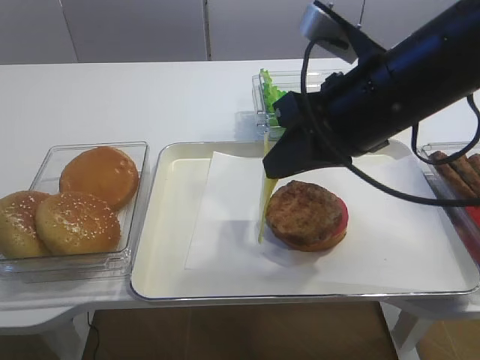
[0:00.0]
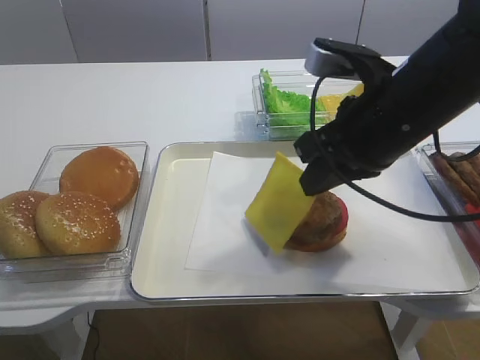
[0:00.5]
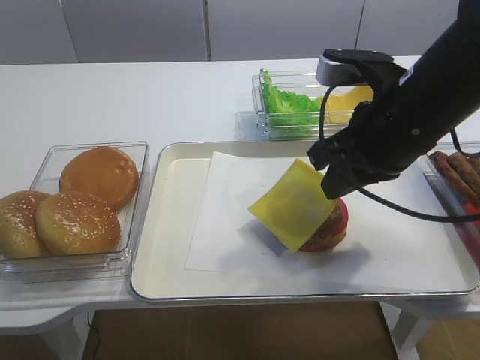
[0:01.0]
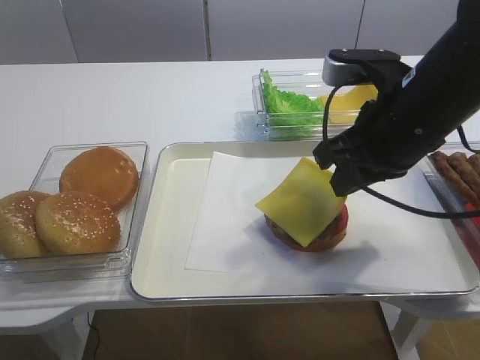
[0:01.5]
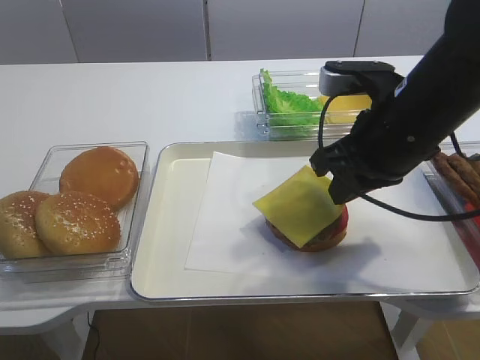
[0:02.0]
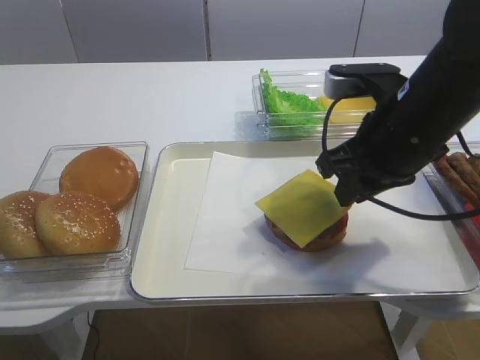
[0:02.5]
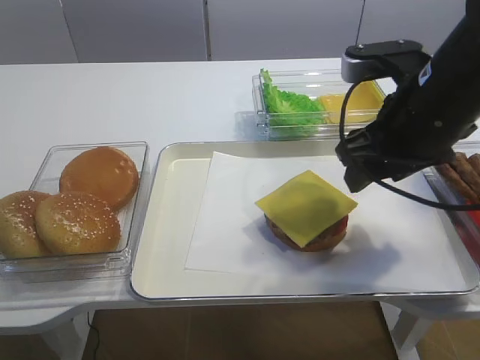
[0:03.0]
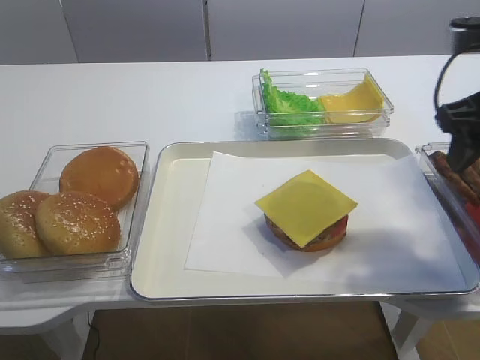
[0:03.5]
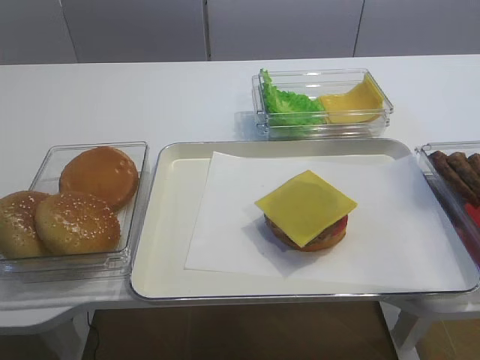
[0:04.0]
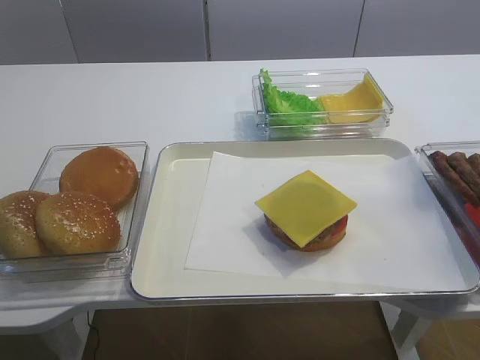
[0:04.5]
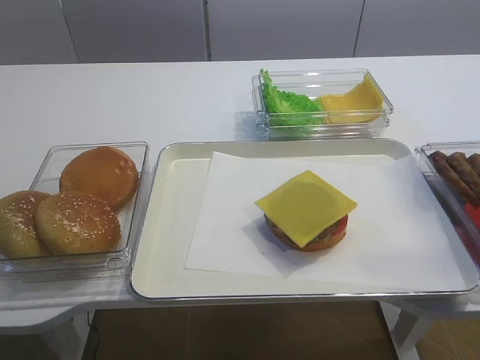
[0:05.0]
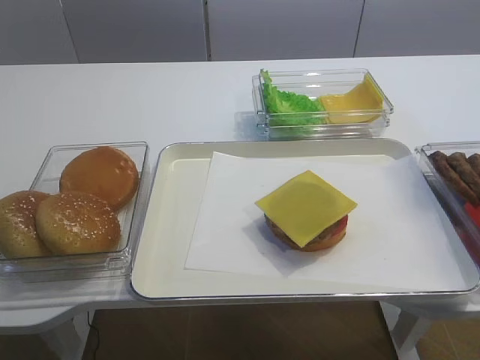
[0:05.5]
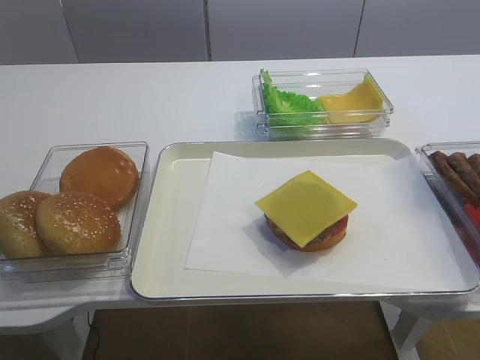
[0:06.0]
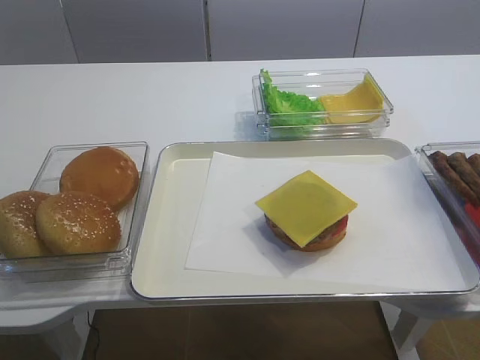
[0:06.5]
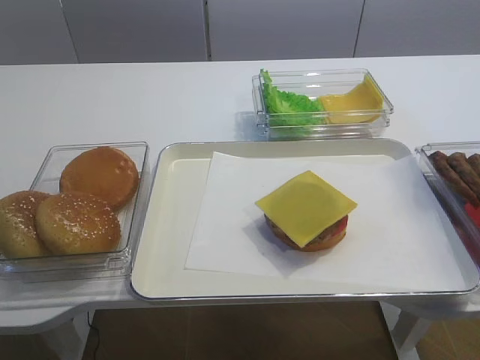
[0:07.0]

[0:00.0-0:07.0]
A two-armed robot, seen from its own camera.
Step, 0:00.0 to 0:03.0: Place the cheese slice on the cutlet with the right gripper.
0:02.0 to 0:03.5: The right gripper is displaced to the right by approximately 10 cm, and opens up.
0:03.5 to 0:05.0: The right gripper travels backward by some 25 cm.

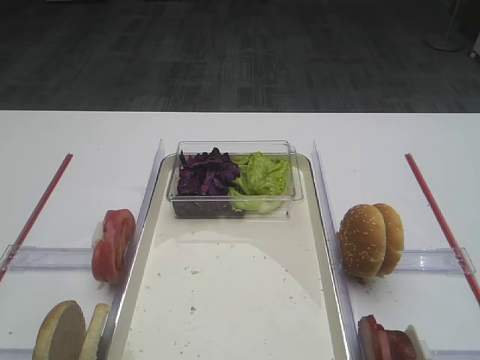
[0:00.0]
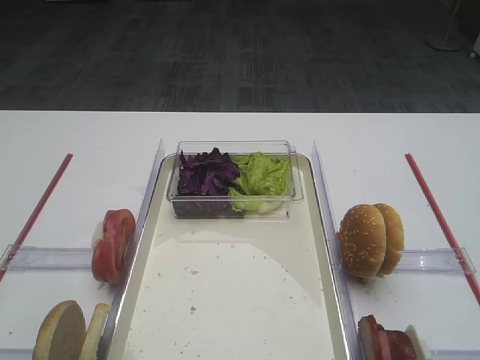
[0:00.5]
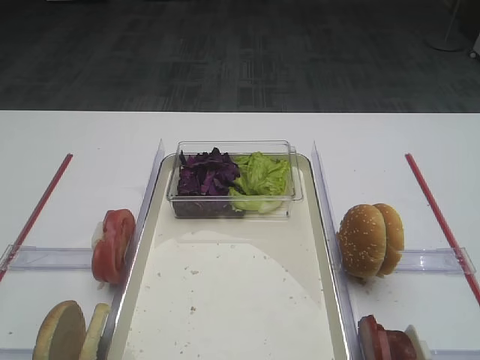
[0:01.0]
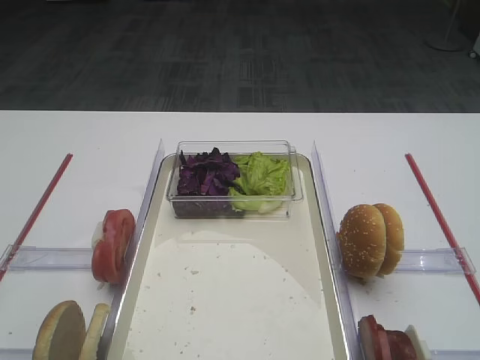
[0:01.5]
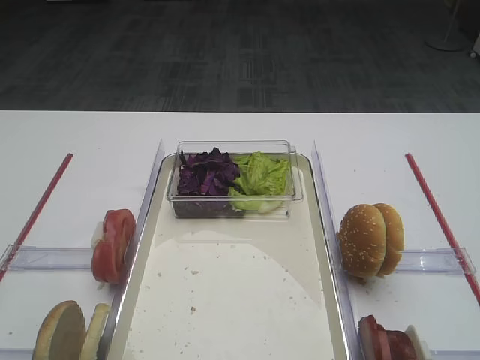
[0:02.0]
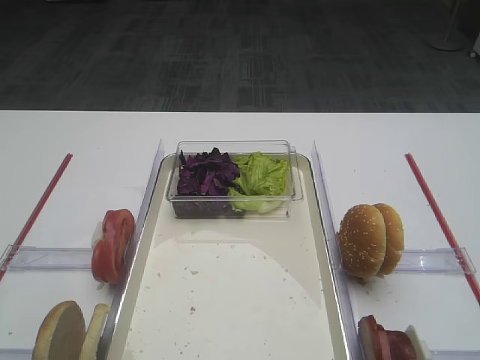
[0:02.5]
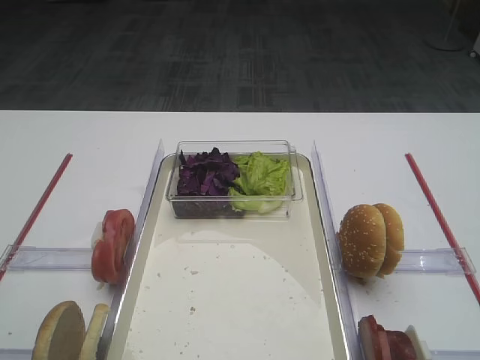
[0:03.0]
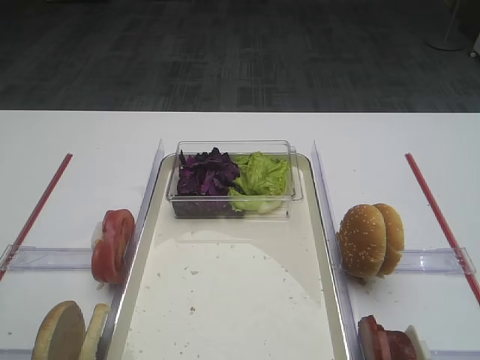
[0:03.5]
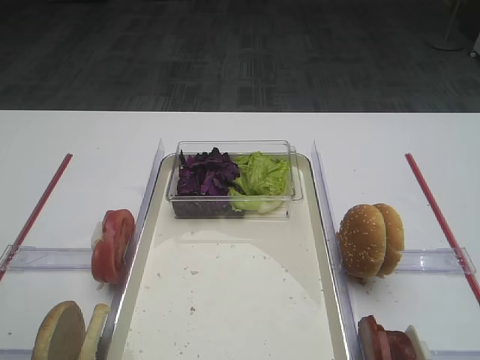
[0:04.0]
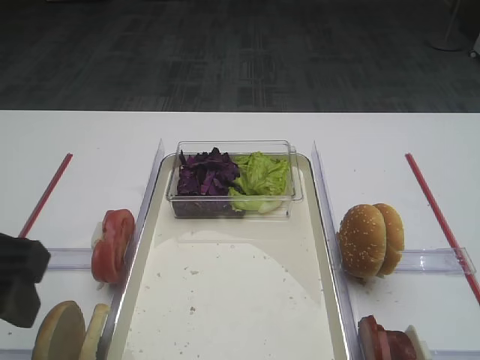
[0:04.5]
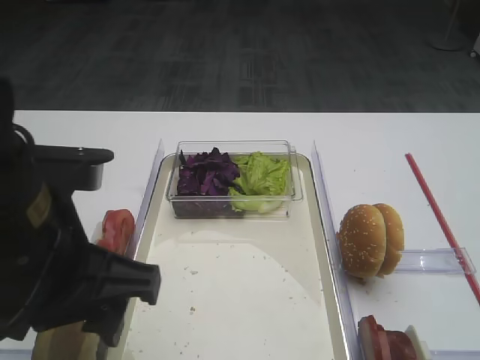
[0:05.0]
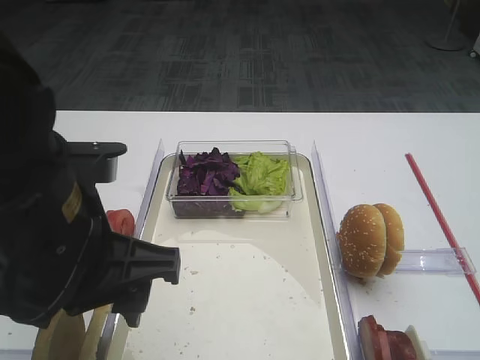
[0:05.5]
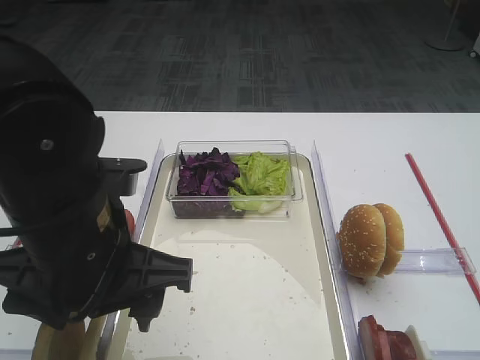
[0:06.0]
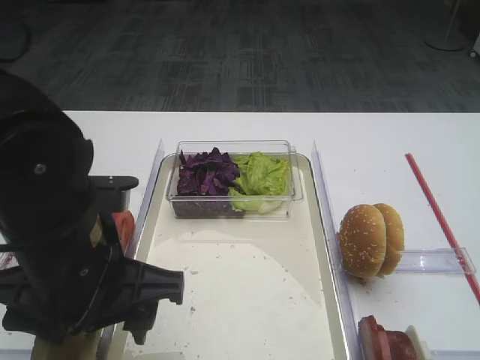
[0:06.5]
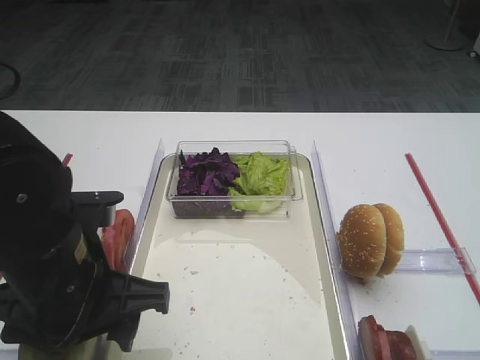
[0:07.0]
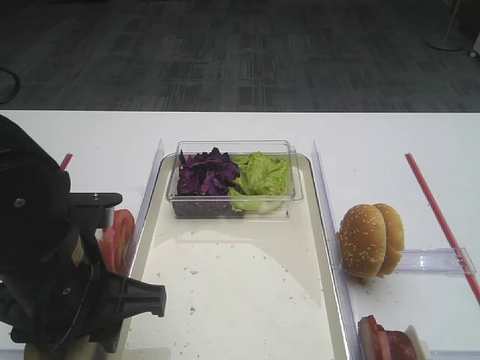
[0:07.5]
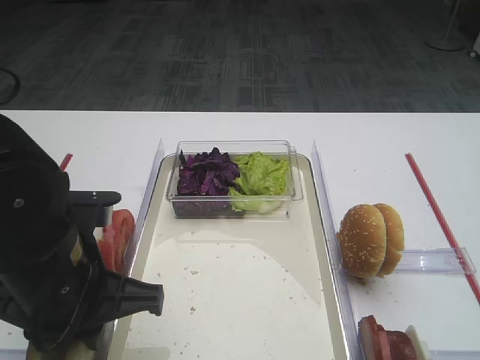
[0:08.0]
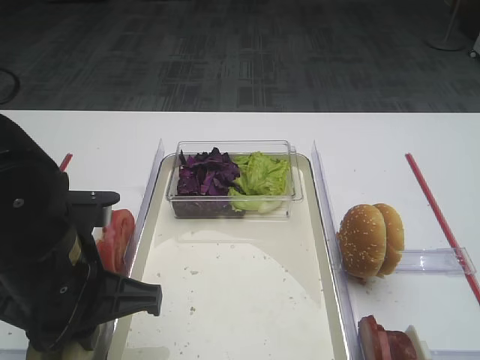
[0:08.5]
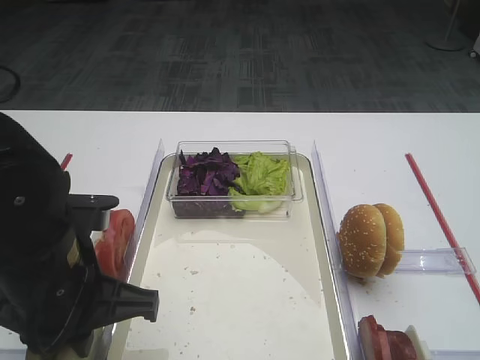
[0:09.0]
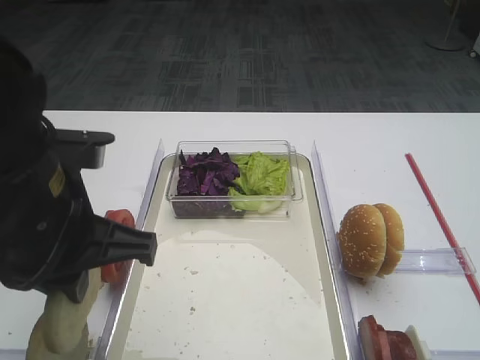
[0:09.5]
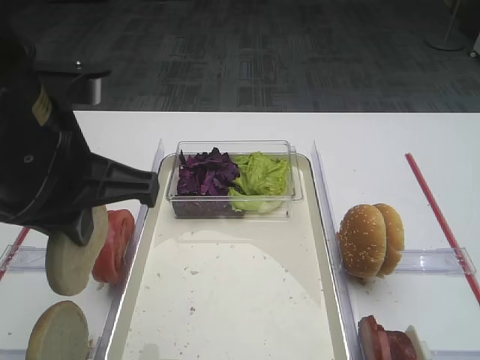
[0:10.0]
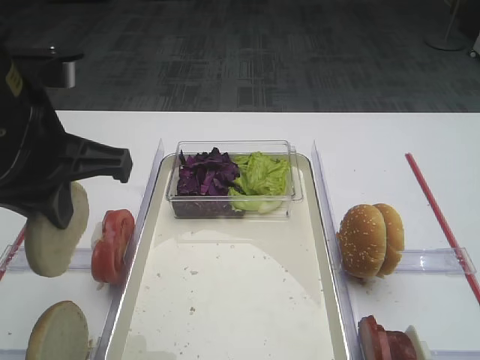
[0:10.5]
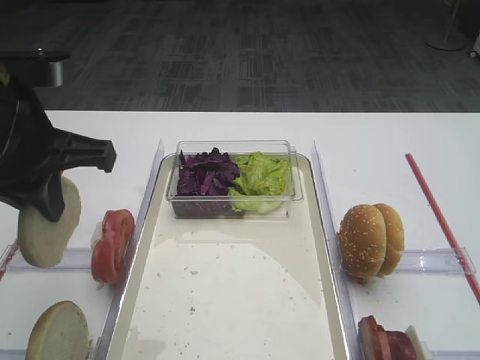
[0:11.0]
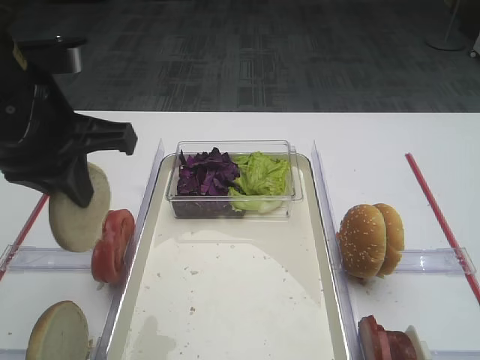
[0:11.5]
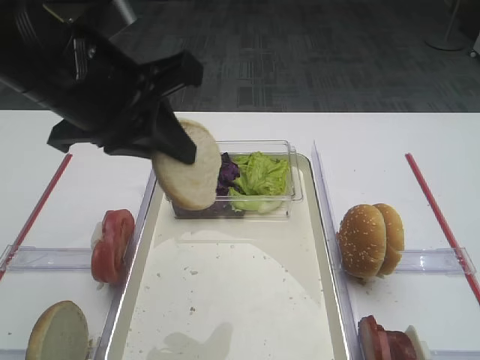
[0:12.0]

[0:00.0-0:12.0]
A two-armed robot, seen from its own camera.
Step, 0:00.0 to 0:09.0: Pick up the bread slice with the left gripper.
0:04.0 to 0:06.0: The left gripper is displaced to the right by about 15 cm.
0:06.0 to 0:08.0: The left gripper ends up about 5 cm from where it was, and closes up.
0:08.0 to 0:10.0: The left gripper goes some 10 cm upward.
0:10.0 to 0:12.0: The left gripper moves about 5 cm.

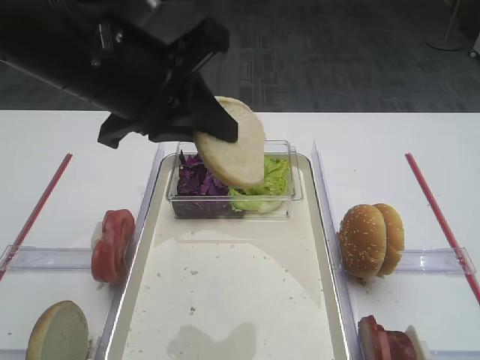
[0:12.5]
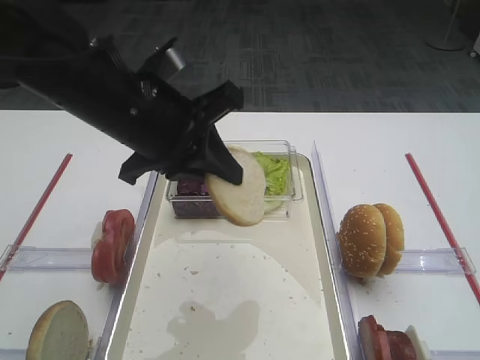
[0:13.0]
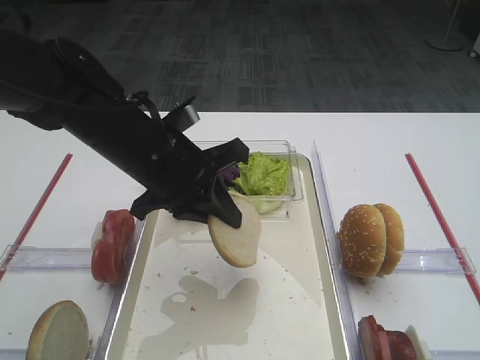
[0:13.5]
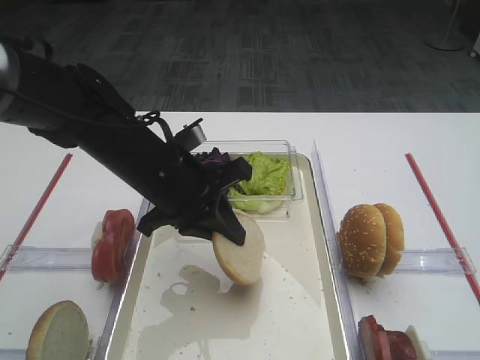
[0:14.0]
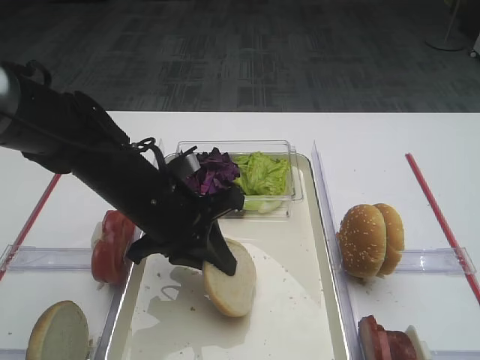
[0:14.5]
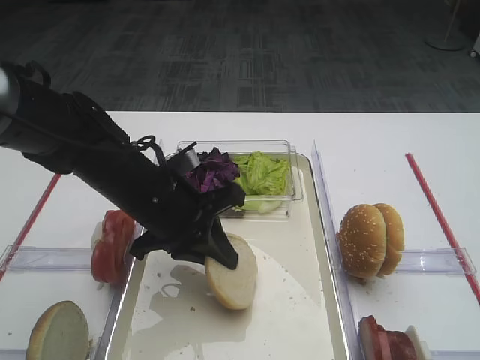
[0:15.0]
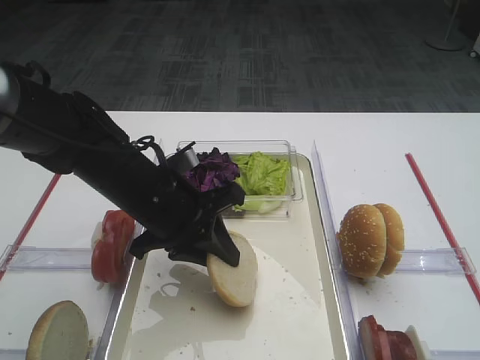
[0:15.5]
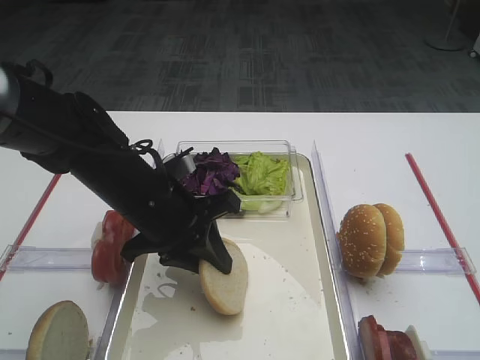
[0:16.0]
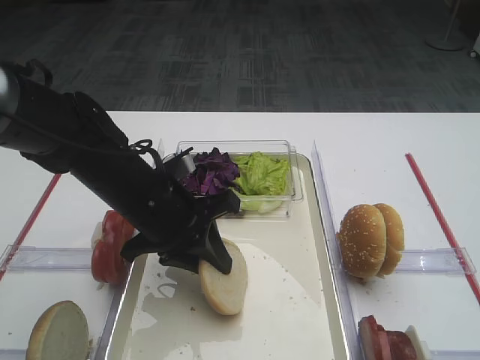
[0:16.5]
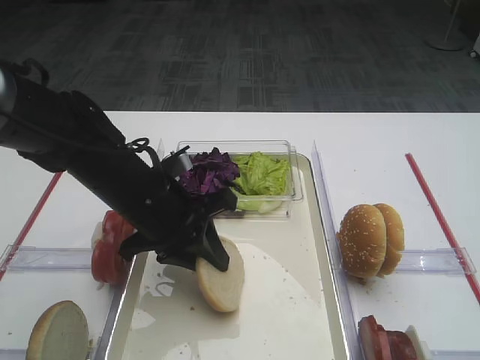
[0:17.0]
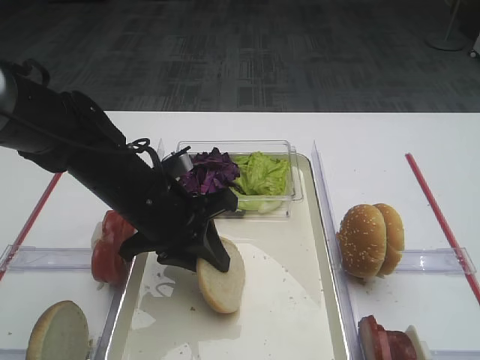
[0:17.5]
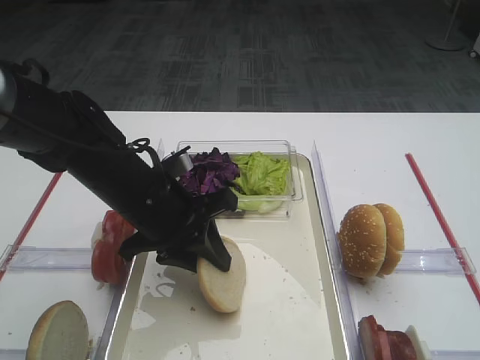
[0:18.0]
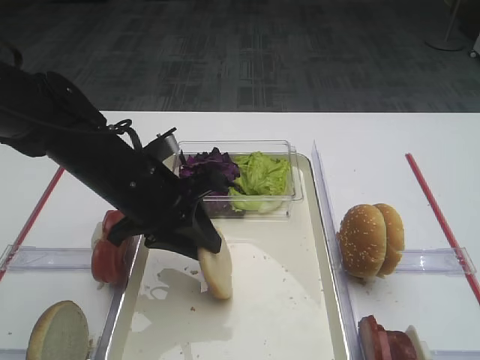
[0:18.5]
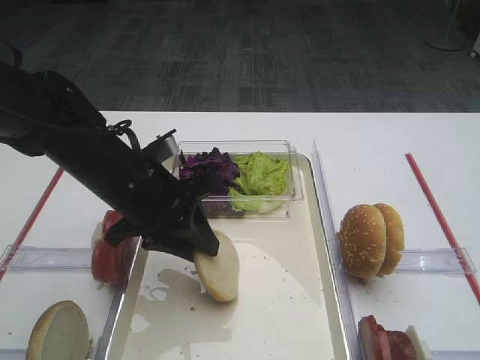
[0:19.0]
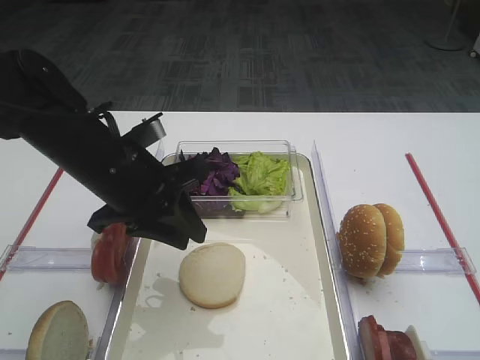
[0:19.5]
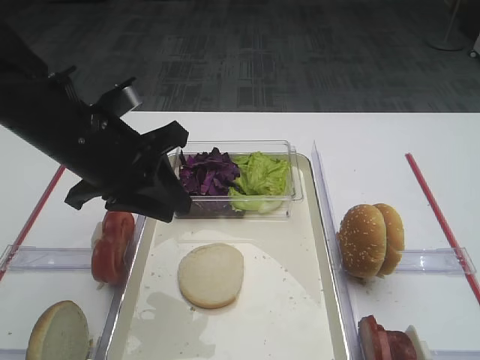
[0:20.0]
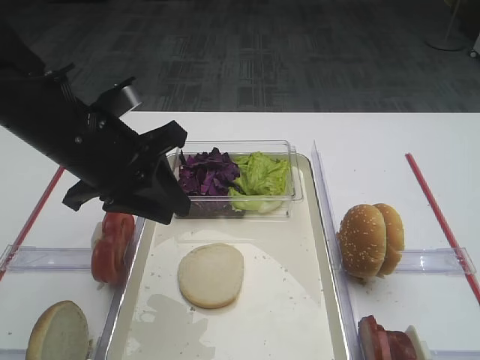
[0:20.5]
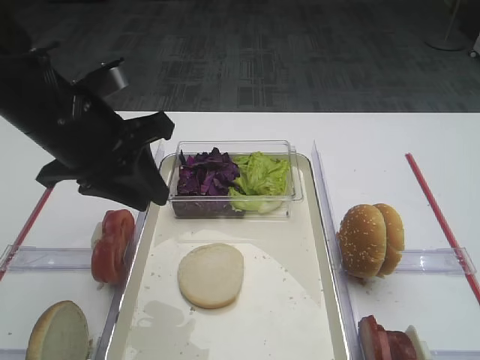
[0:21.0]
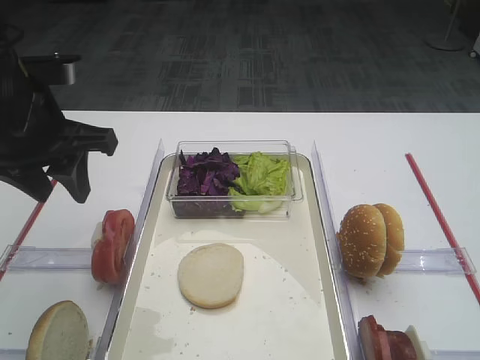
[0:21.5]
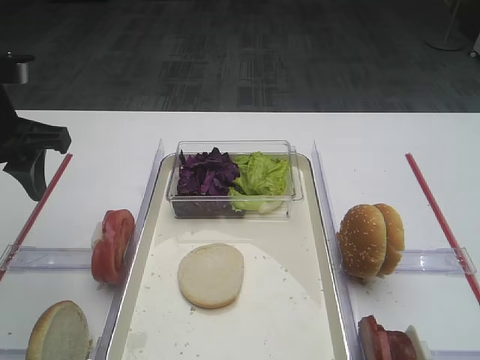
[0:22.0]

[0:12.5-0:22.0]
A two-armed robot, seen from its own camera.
Step, 0:12.5 to 0:21.0: Place the bread slice on the tray with the left gripper.
0:12.5 to 0:14.5: The left gripper shifts roughly 15 cm downward.
0:14.5 to 0:18.0: The two grippers keep their place.
0:18.0 to 0:20.0: The left gripper is displaced upward and to the left by roughly 10 cm.
0:20.0 to 0:22.0: The left gripper shifts about 10 cm to the left, and opens up.
